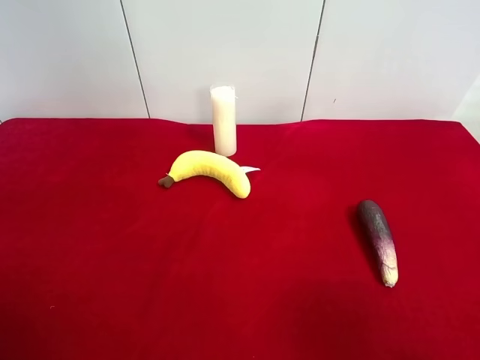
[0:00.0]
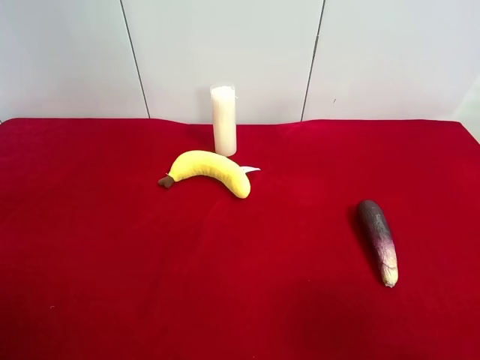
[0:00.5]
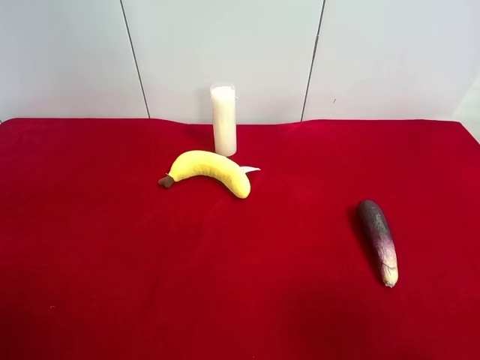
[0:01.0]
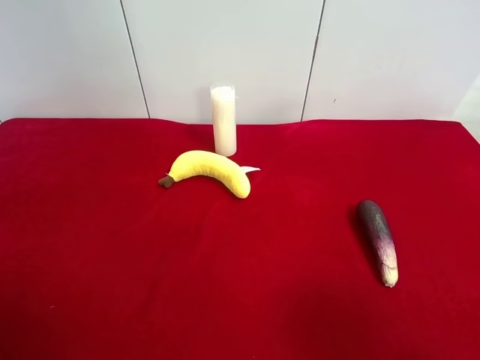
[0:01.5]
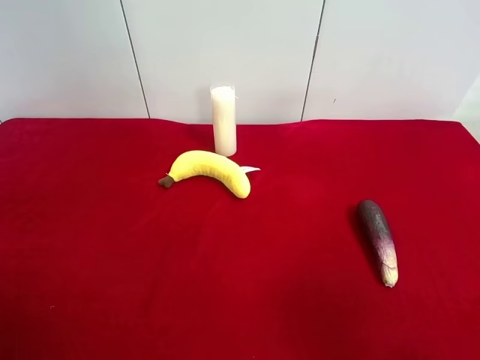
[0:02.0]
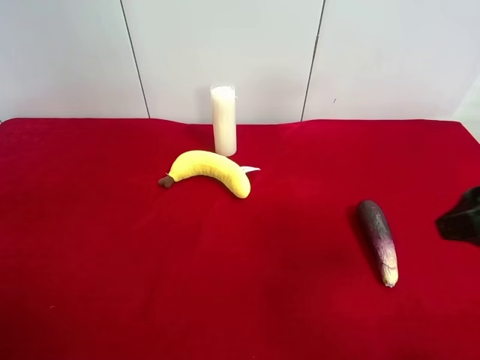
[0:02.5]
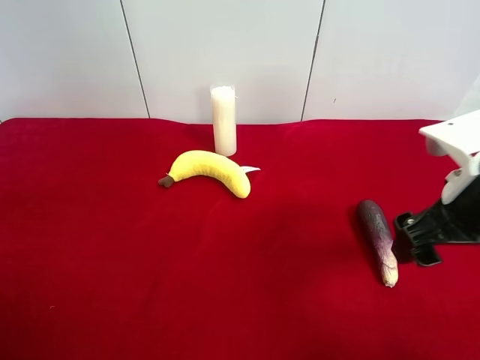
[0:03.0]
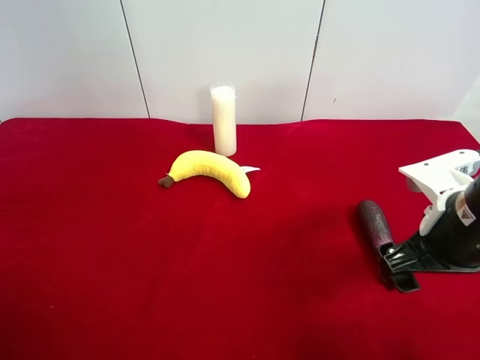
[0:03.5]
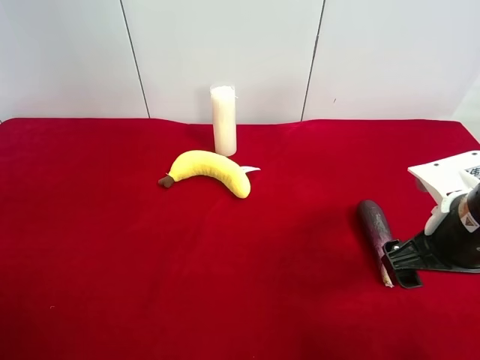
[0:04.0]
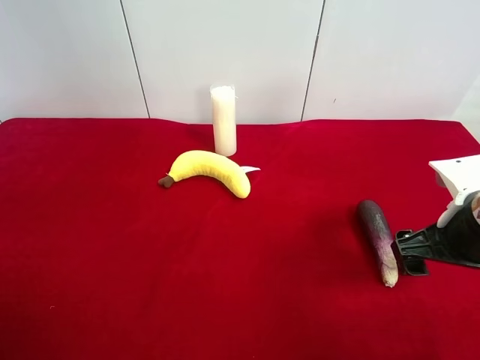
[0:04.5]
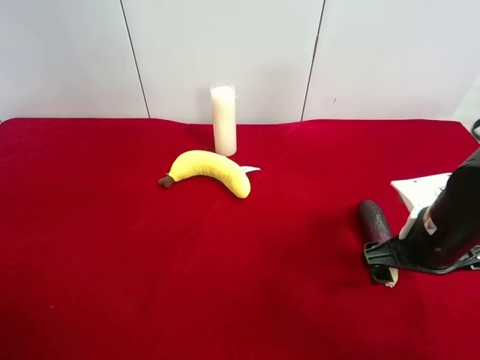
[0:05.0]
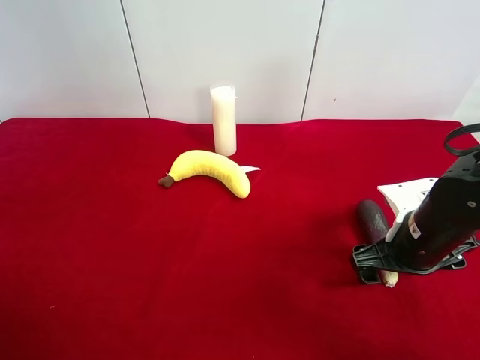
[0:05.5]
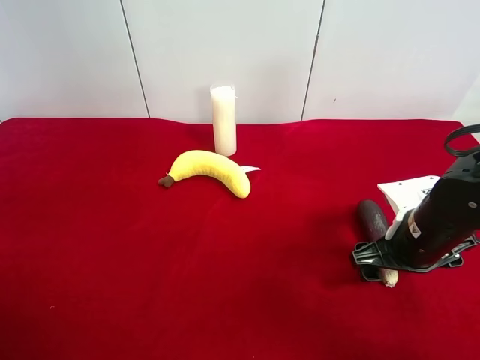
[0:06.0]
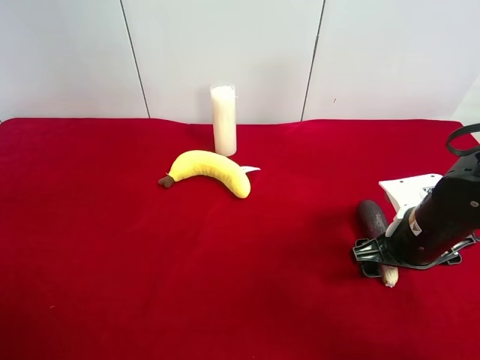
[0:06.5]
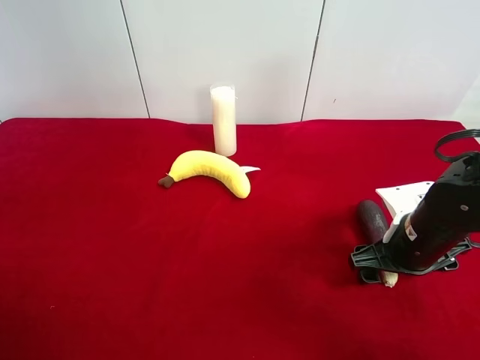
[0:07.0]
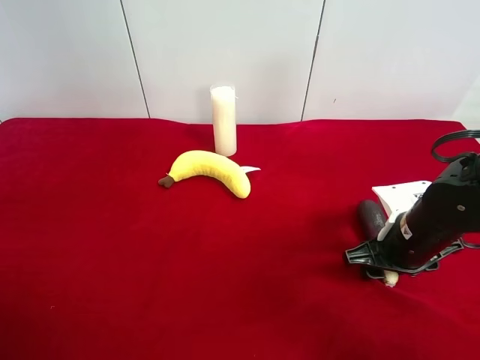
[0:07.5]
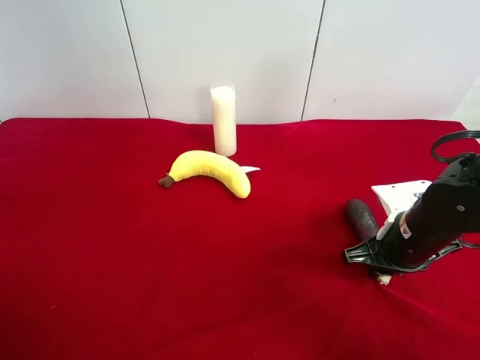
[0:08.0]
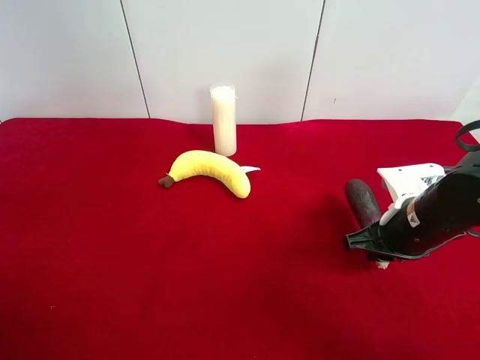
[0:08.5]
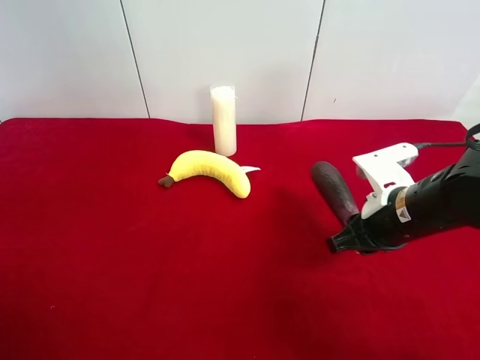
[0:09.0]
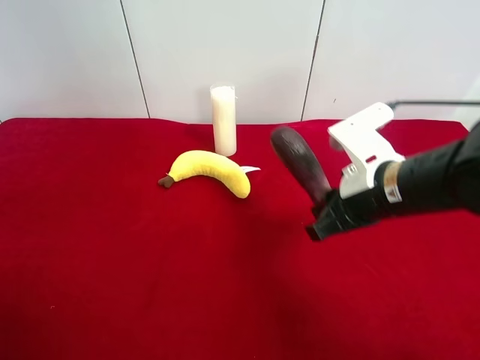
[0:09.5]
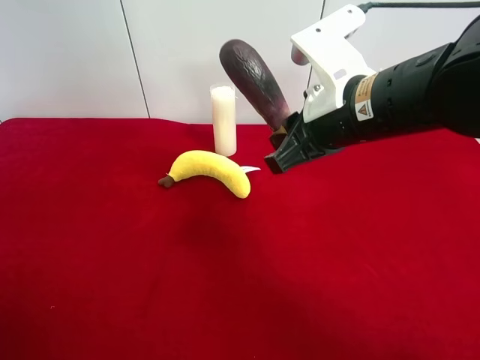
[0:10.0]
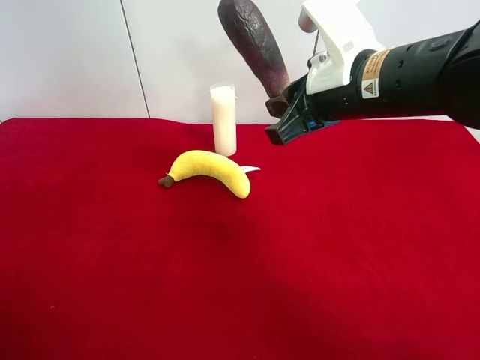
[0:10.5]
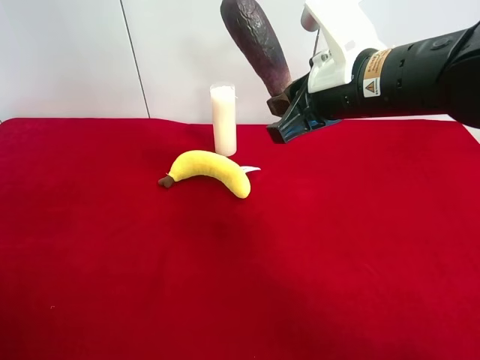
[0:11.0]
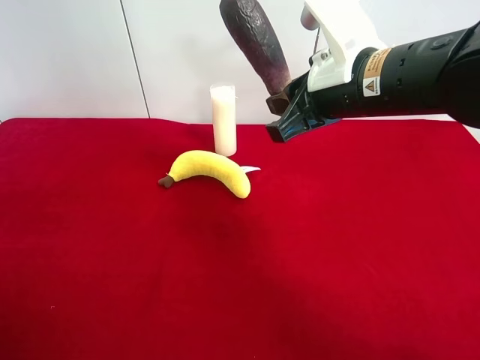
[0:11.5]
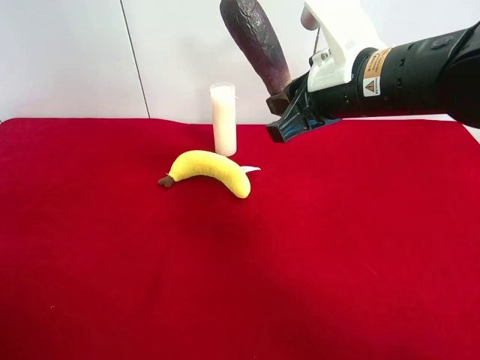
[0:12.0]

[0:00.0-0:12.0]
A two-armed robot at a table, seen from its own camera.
Task of the whole recording: use the right gripper to pick up the item and transfer it from the right gripper to the left gripper.
Step, 0:00.0 to 0:07.5: Use the right gripper to grab the eggplant on the right side of the table.
0:02.0 to 0:04.0: The right gripper heads forward and downward, covering roughly 15 cm, and opens up.
0:04.0 to 0:06.0: The right gripper moves downward, about 5 cm.
0:06.0 to 0:08.0: The right gripper closes.
0:08.0 to 0:10.0: The right gripper moves upward and to the left, approximately 20 cm.
0:10.0 to 0:12.0: There are only small adjustments of the grippers.

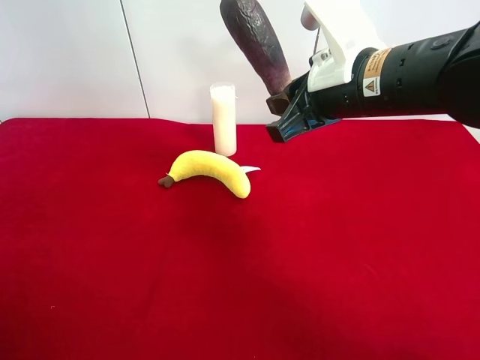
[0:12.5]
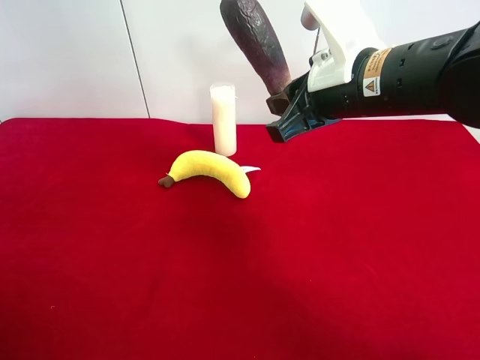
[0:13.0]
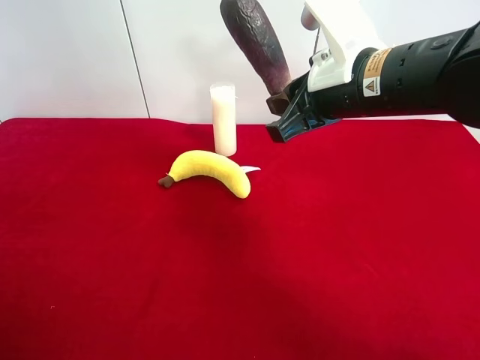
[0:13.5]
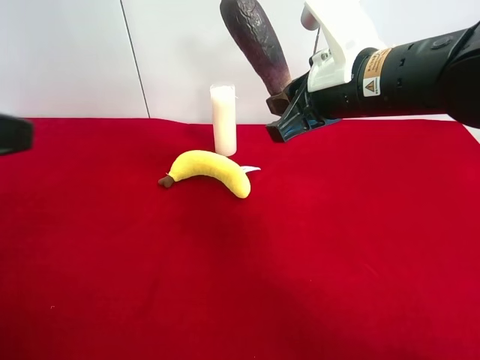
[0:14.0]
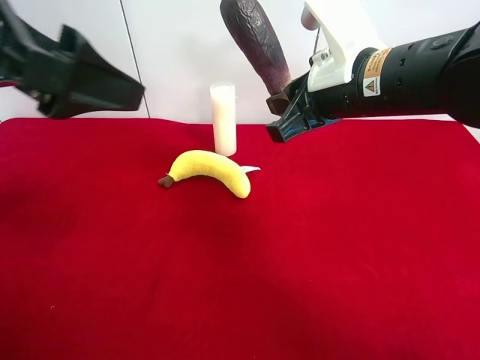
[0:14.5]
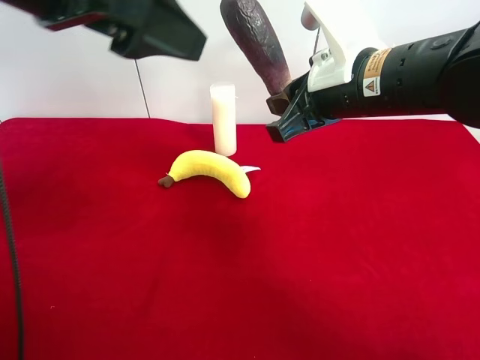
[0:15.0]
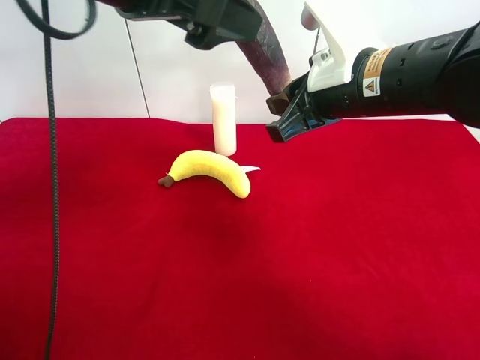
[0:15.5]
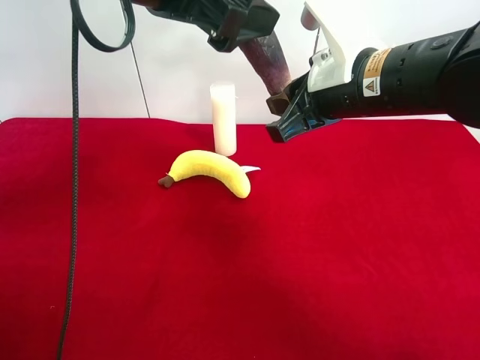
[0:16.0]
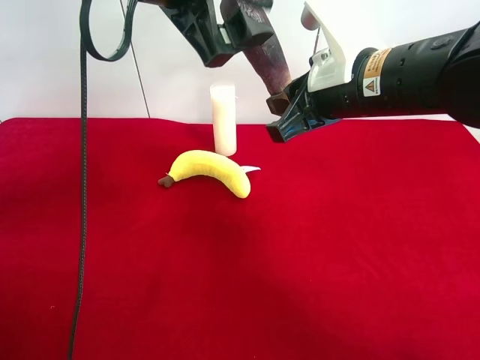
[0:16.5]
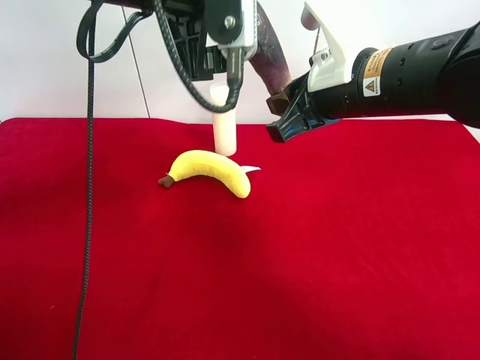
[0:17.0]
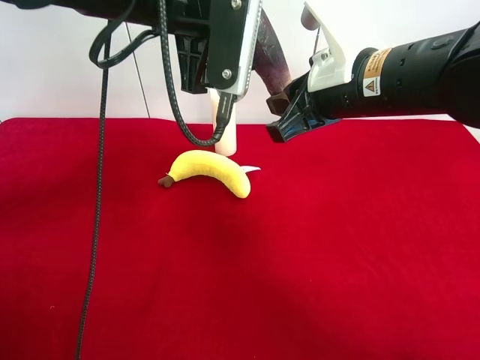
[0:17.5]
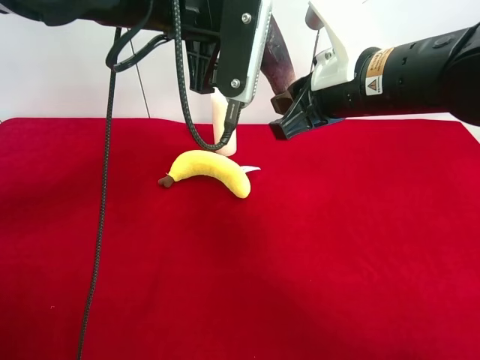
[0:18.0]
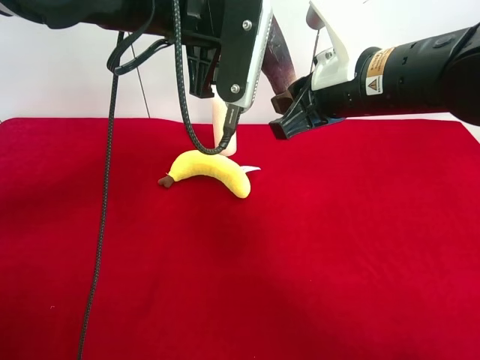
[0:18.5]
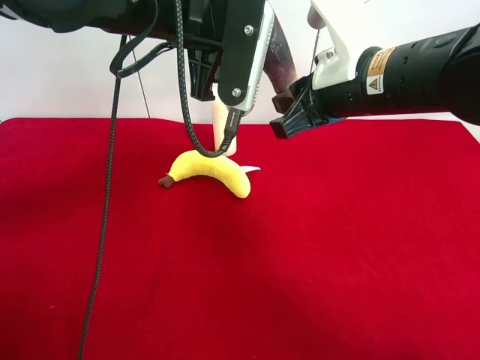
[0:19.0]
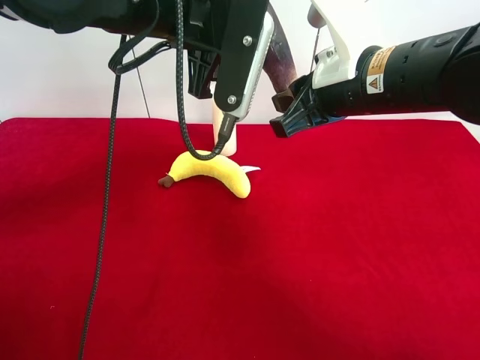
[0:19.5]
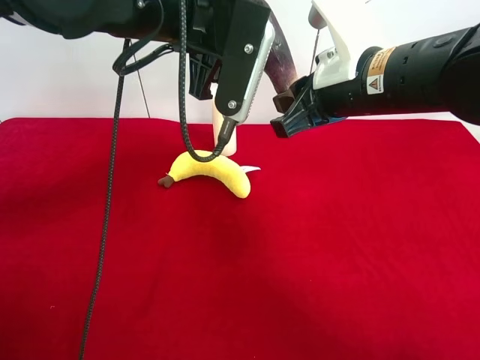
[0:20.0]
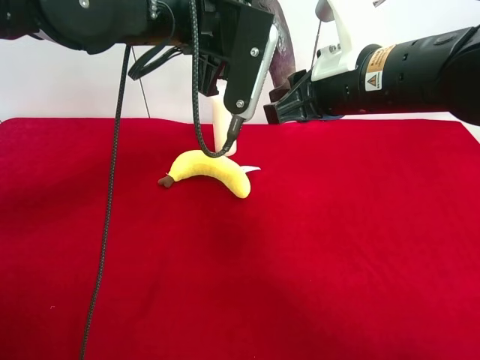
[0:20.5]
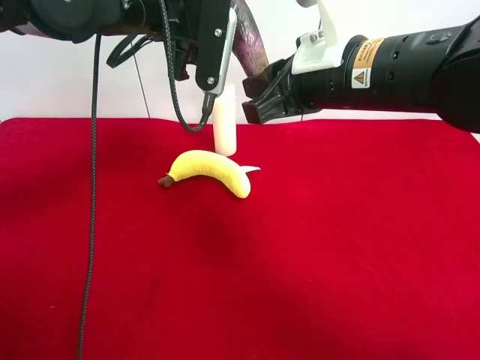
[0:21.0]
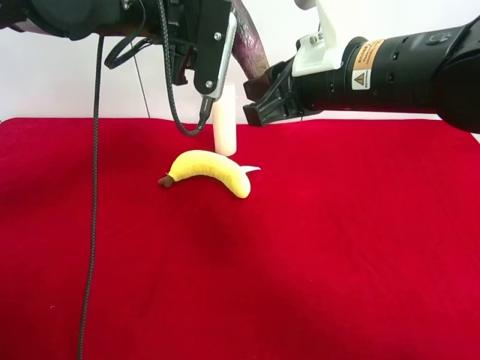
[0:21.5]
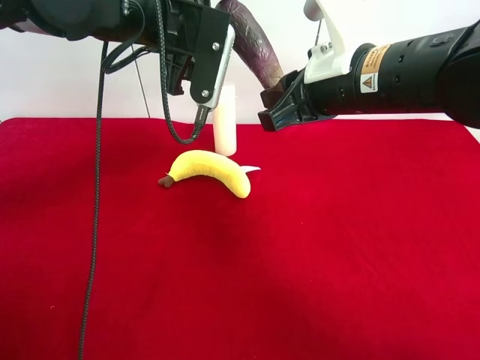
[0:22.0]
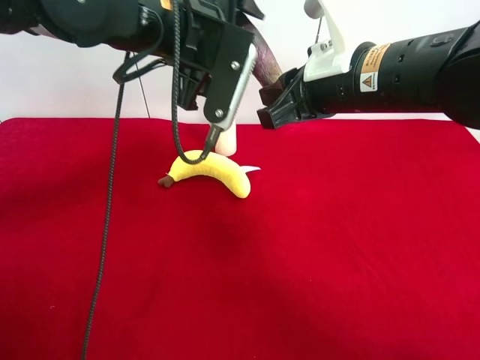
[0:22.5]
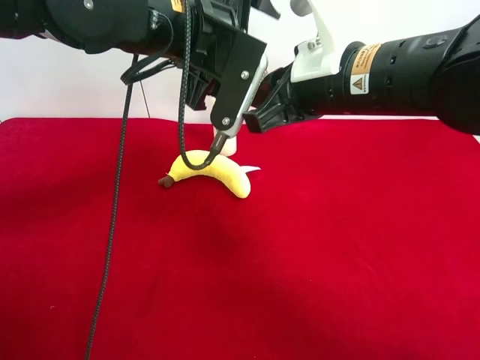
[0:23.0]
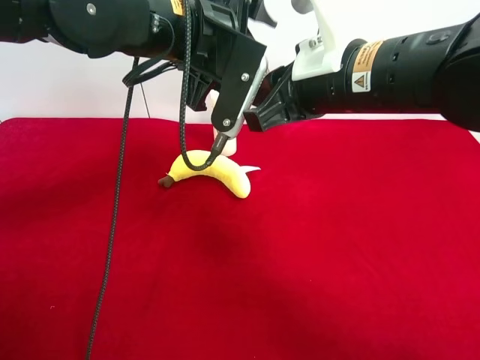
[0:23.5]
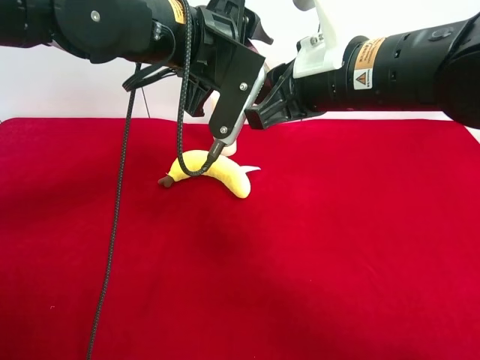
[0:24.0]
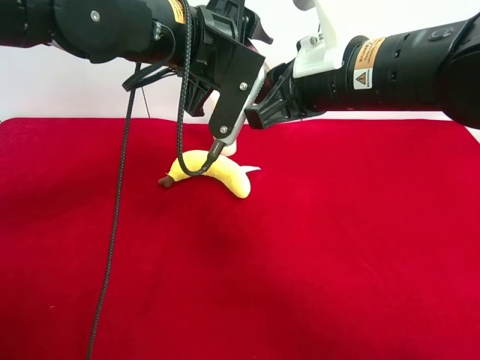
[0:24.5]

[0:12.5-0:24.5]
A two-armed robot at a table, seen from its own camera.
Task of the whole recording: use the right gripper to pick up the item and transfer it from the right gripper to the left gripper.
0:12.5 to 0:14.5: The left gripper is displaced forward and to the right by about 20 cm.
0:14.5 to 0:16.5: The left gripper shifts about 15 cm to the right and forward.
0:18.5 to 0:22.5: The grippers move only a little.
0:22.5 to 0:24.5: The left gripper closes.

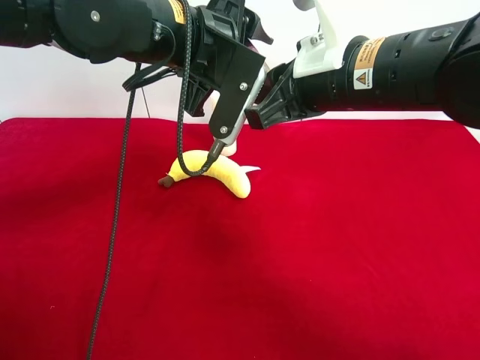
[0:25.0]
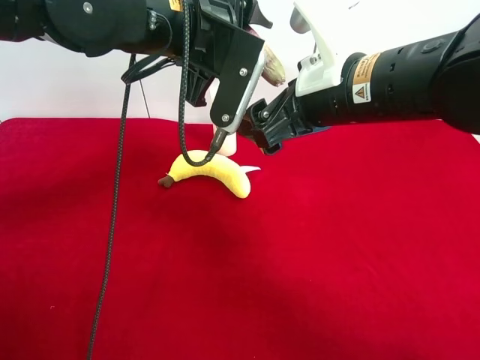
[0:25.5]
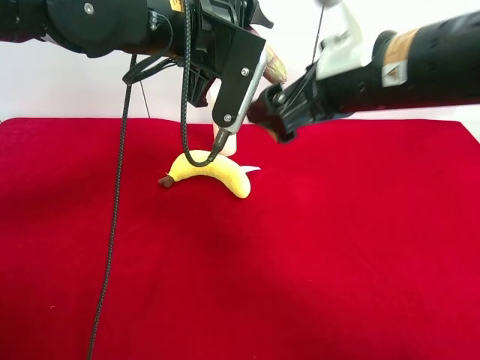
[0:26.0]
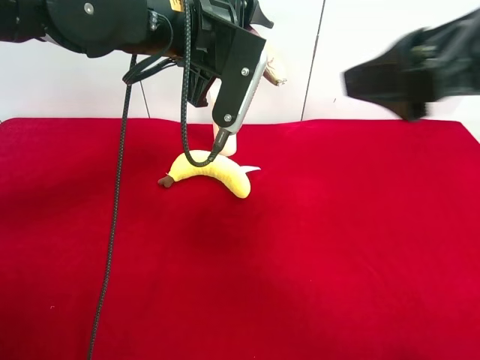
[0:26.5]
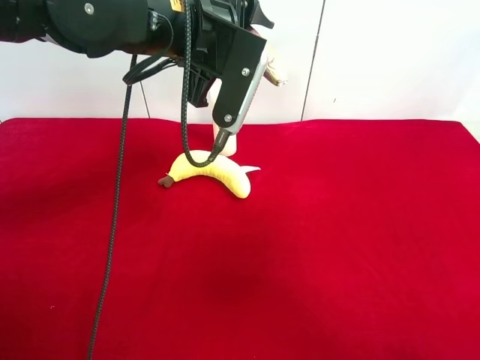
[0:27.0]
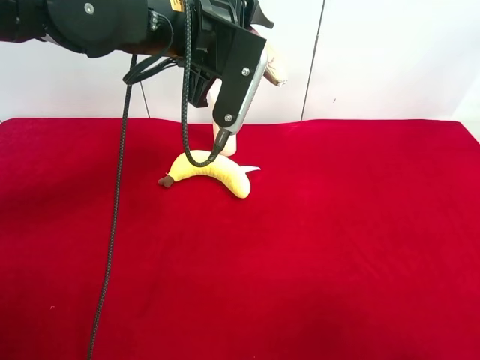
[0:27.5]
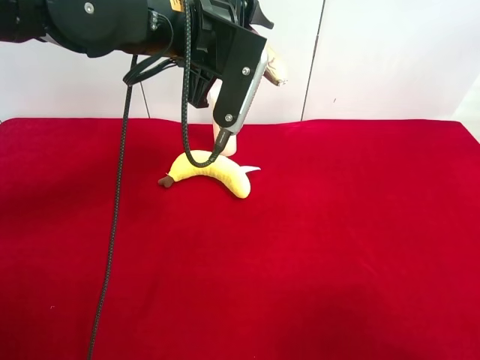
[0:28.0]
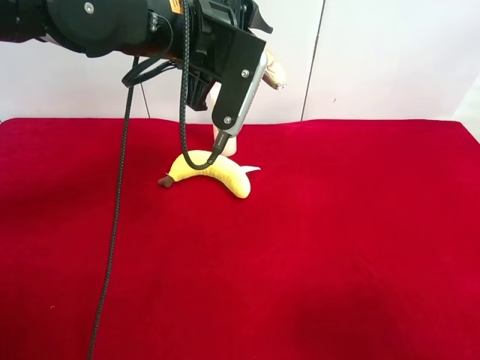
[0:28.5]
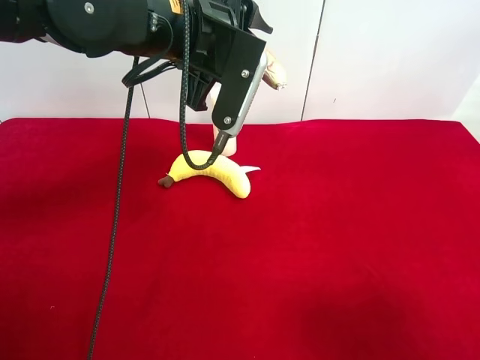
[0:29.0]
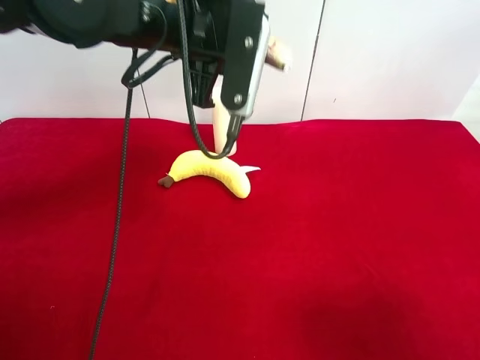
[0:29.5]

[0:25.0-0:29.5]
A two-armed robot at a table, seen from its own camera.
Task of the whole recording: use the right gripper to pick up the item and transfer it from the right gripper to the left gripper.
0:25.0 to 0:27.0: The right gripper is displaced backward, to the right and upward by about 30 cm, and opens its fingers.
0:27.0 to 0:29.5: The right gripper heads downward, covering roughly 10 cm.
